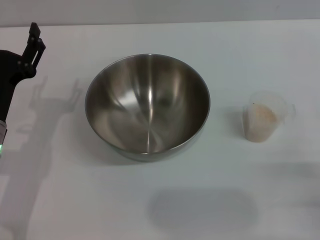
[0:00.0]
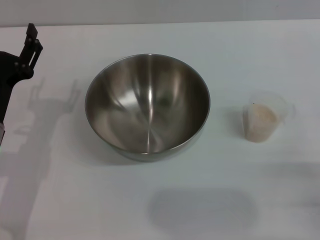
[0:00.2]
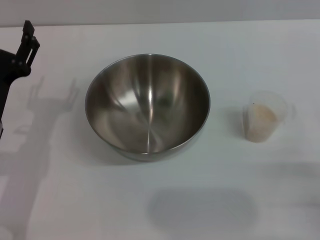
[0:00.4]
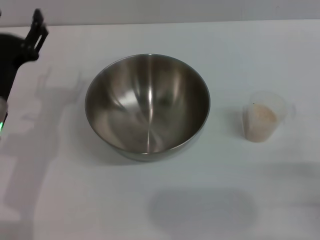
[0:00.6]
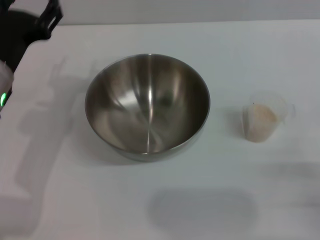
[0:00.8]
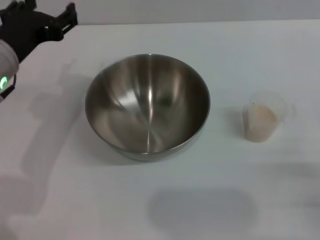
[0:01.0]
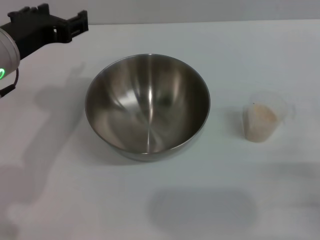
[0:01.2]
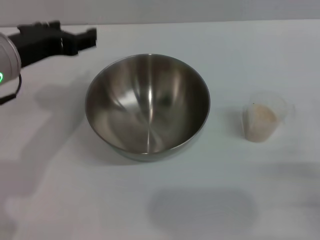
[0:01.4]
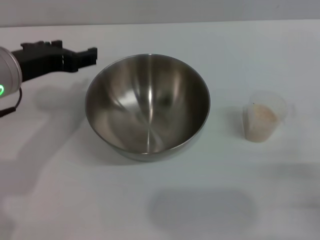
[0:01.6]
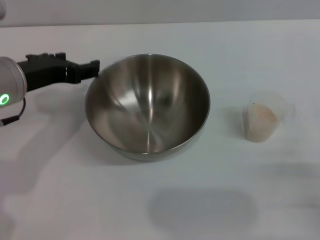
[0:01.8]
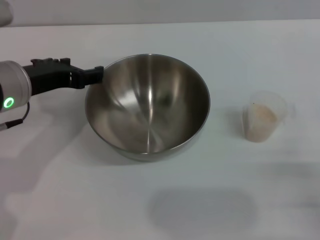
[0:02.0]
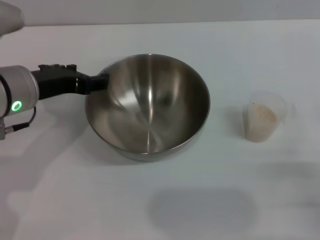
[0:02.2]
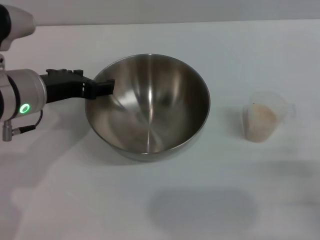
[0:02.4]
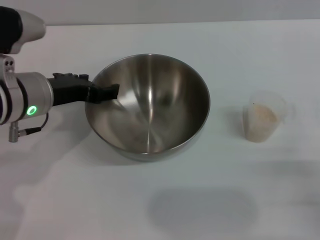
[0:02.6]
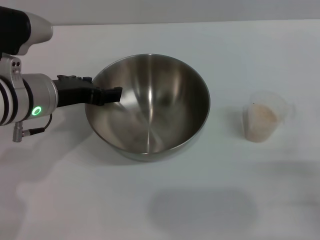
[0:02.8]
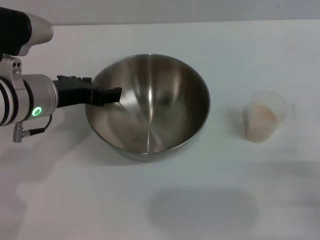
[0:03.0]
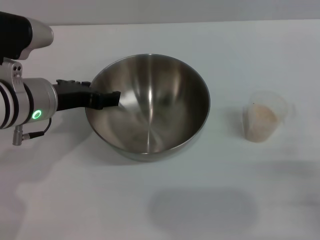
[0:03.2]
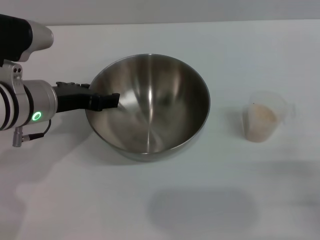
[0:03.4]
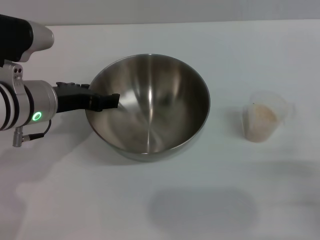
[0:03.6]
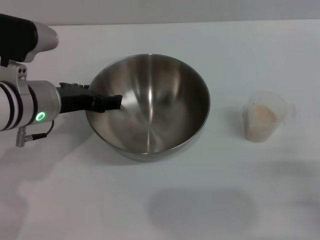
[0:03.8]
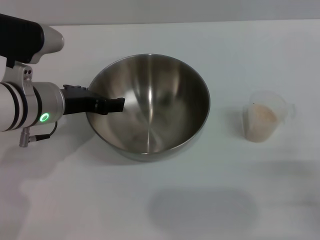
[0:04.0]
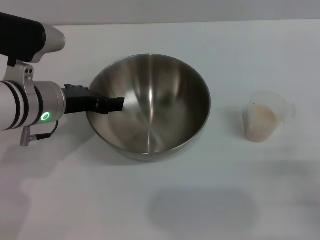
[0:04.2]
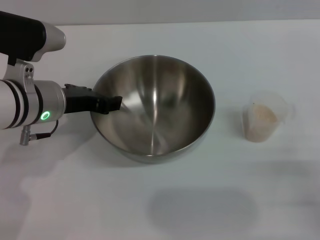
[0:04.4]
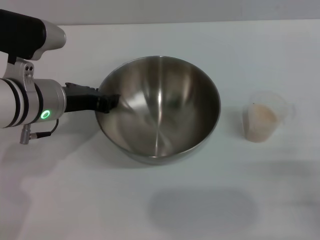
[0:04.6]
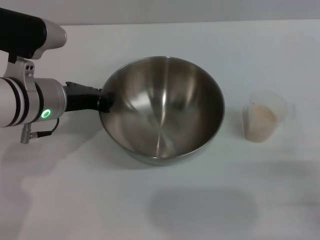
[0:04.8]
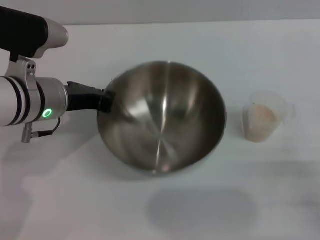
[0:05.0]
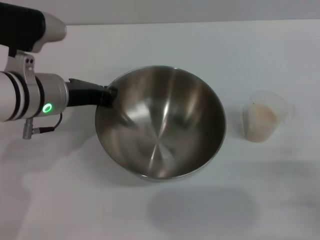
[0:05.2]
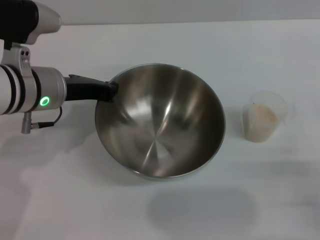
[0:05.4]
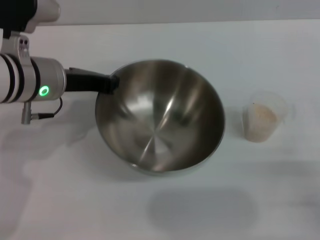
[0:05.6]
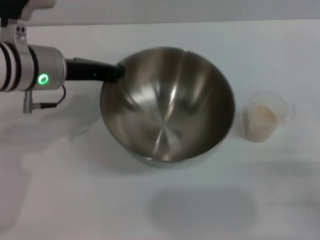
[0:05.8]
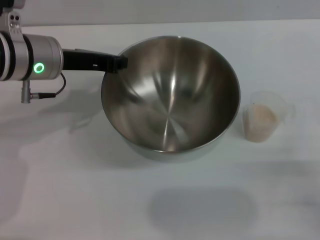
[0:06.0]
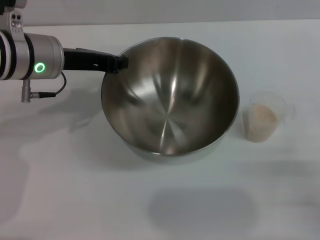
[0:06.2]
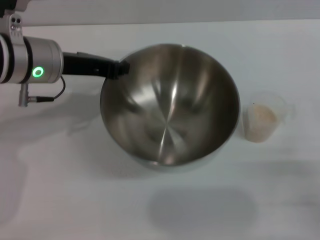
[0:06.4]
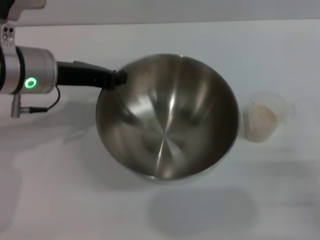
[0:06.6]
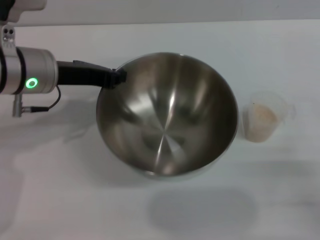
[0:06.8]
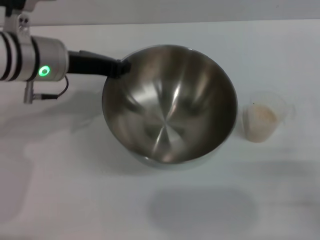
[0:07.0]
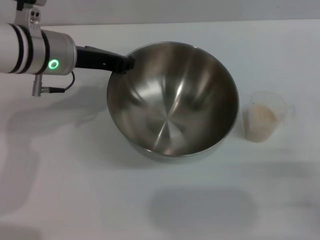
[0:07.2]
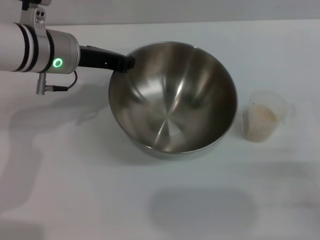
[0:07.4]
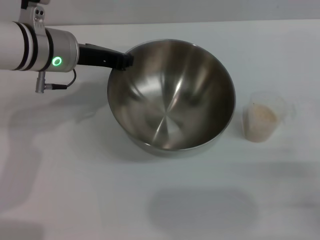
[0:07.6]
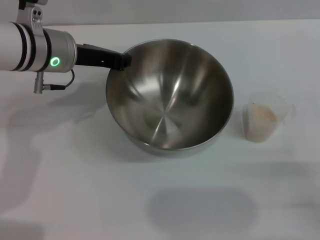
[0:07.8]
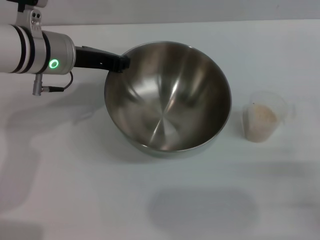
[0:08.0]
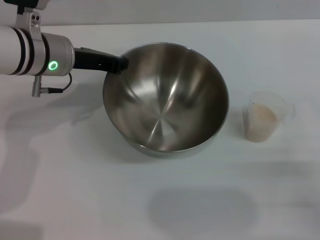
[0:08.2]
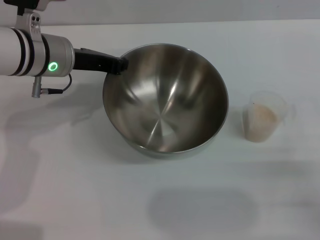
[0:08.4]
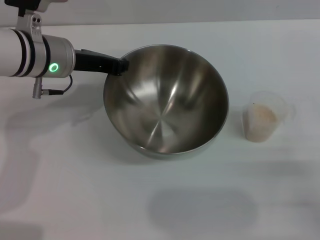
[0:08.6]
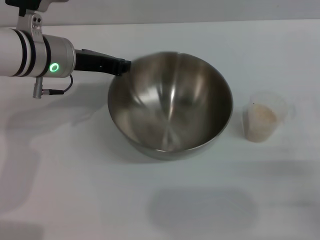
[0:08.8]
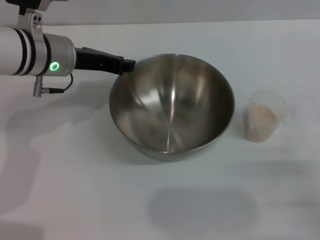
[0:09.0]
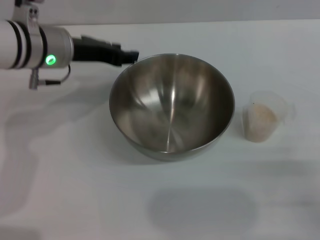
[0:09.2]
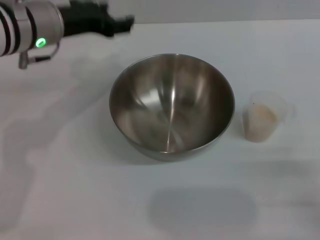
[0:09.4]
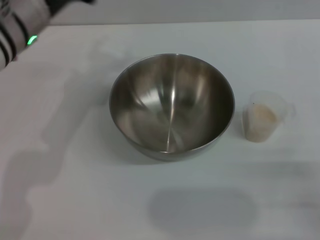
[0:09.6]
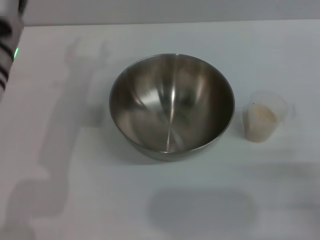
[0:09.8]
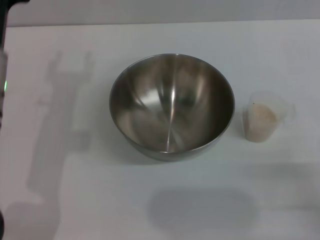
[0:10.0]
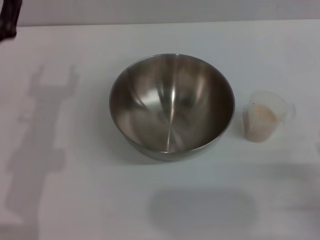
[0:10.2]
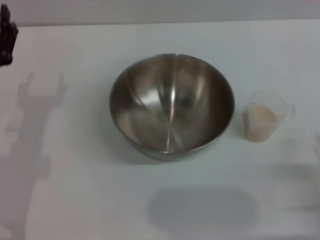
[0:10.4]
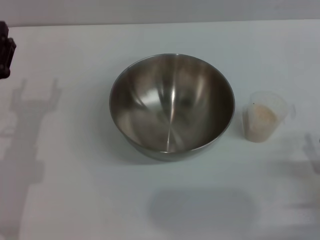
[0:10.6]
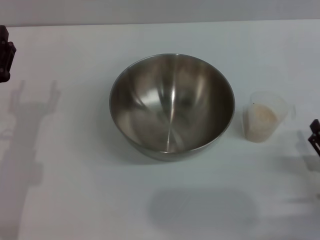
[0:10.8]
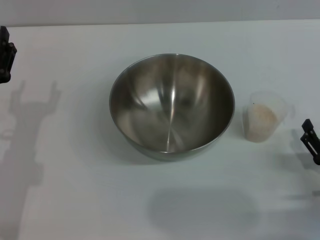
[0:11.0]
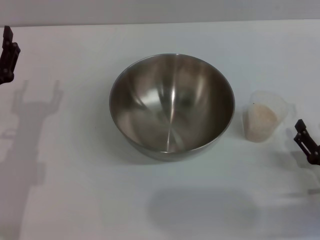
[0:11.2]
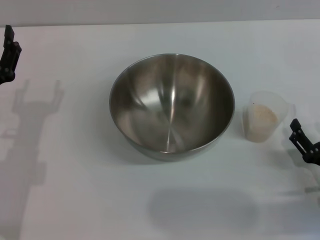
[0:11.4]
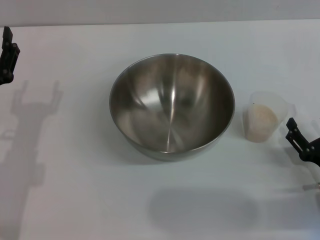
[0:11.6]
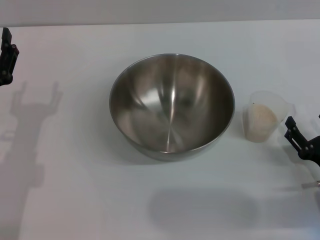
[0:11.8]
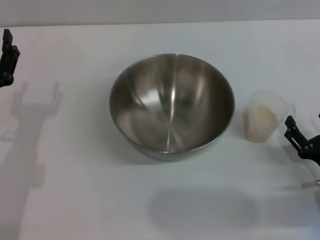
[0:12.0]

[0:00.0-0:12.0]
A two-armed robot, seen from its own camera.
Task of the whole recording: Place the bowl in the middle of the table with one hand and pour the rice from the grain cup into it with the other hand.
Step, 0:00.0 to 0:06.2: Pick up the bowl with the left gripper.
Step, 0:06.4 to 0:09.2: Place the bowl in the center of view with the left gripper.
0:00.0 to 0:01.6: The left gripper moves upward, about 10 cm.
0:01.6 to 0:03.0: The left gripper ends up approximately 5 cm from where it was.
0:03.0 to 0:04.4: The grippers make only small movements.
0:04.4 to 0:06.0: The left gripper ends up some 5 cm from where it was, and closes up.
0:06.0 to 0:07.6: There are only small adjustments of the grippers.
0:07.6 to 0:09.0: The two grippers keep their place.
0:09.0 to 0:10.4: The left gripper travels backward, downward and to the left by some 15 cm, and opens up.
0:10.4 to 0:12.0: The right gripper shifts some 5 cm forward.

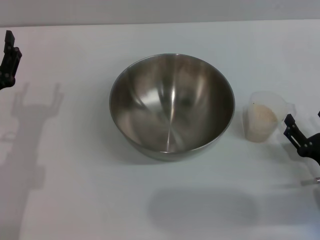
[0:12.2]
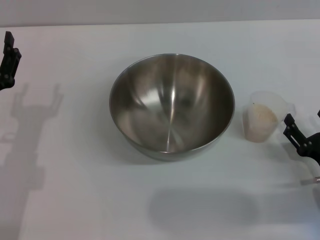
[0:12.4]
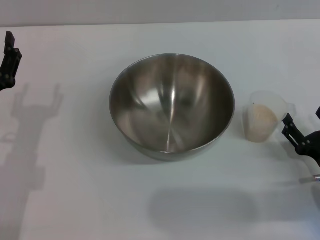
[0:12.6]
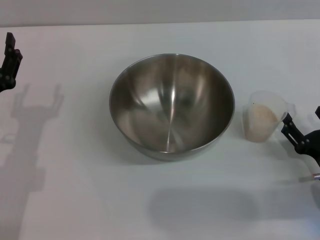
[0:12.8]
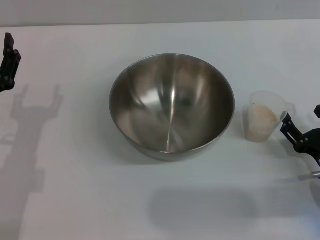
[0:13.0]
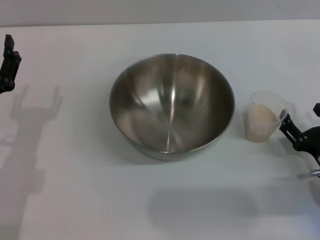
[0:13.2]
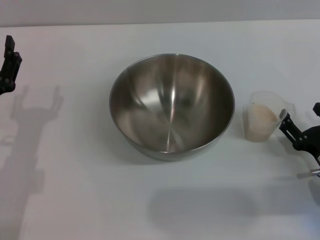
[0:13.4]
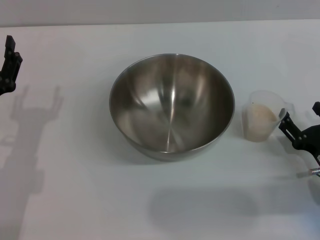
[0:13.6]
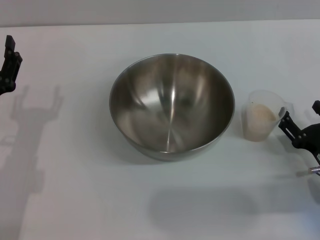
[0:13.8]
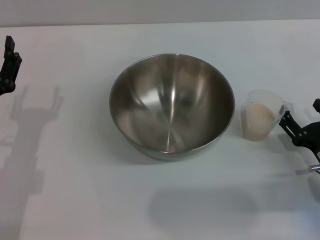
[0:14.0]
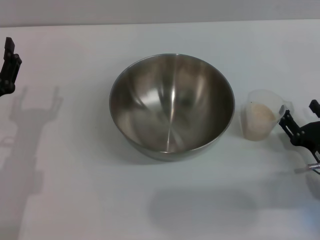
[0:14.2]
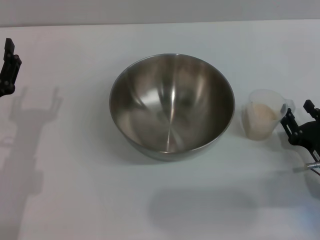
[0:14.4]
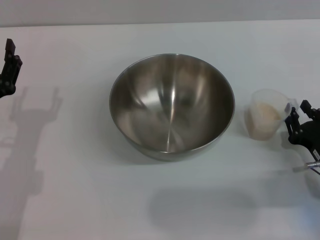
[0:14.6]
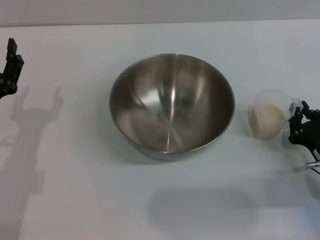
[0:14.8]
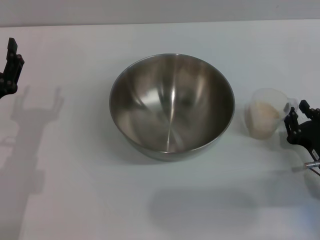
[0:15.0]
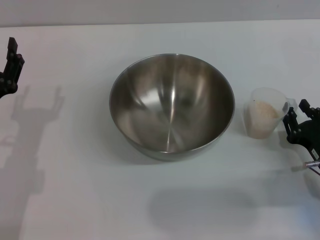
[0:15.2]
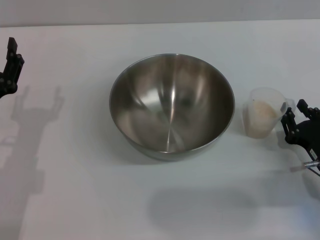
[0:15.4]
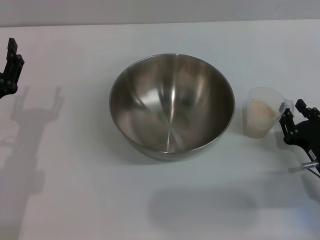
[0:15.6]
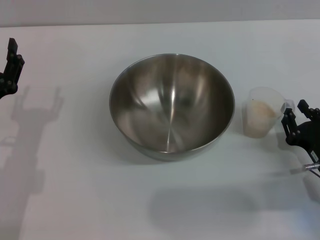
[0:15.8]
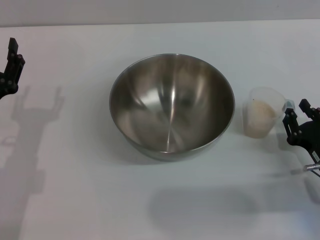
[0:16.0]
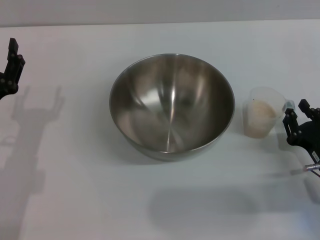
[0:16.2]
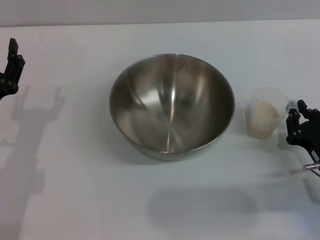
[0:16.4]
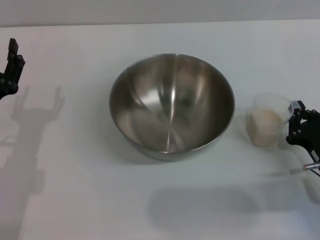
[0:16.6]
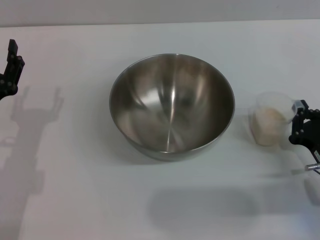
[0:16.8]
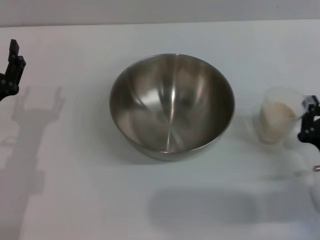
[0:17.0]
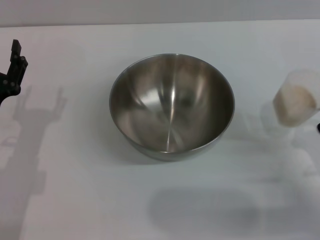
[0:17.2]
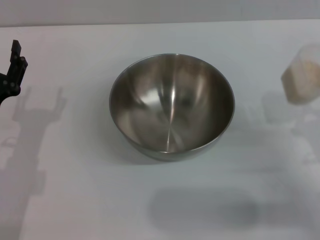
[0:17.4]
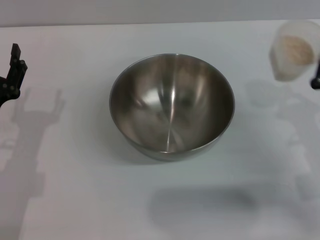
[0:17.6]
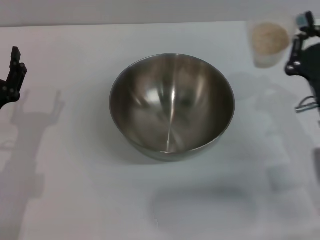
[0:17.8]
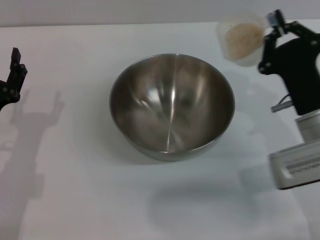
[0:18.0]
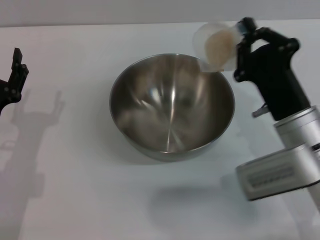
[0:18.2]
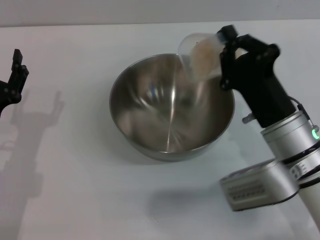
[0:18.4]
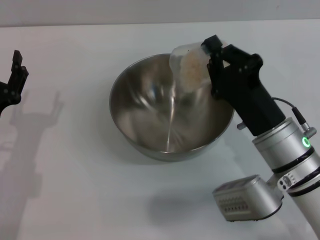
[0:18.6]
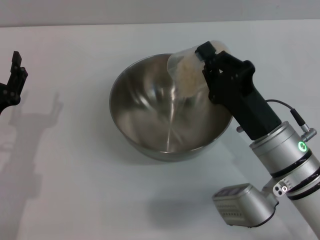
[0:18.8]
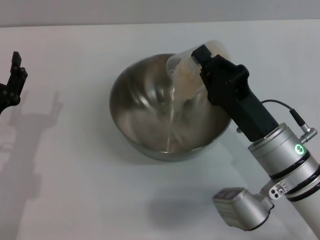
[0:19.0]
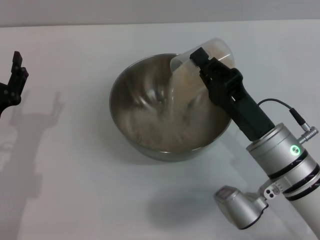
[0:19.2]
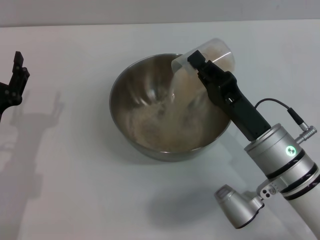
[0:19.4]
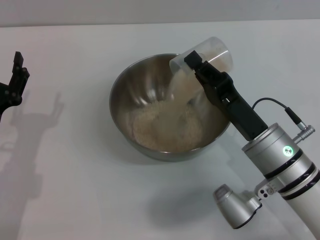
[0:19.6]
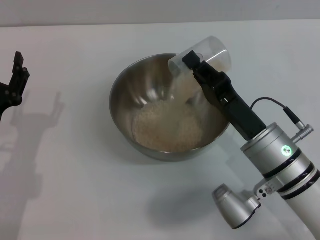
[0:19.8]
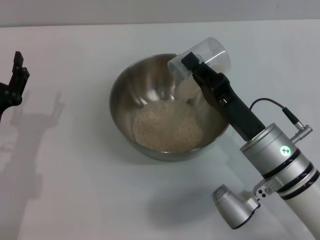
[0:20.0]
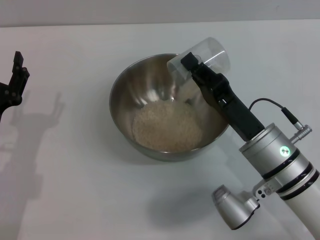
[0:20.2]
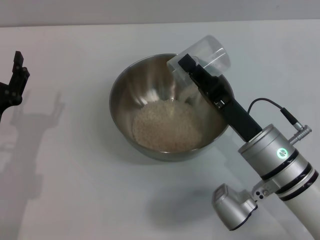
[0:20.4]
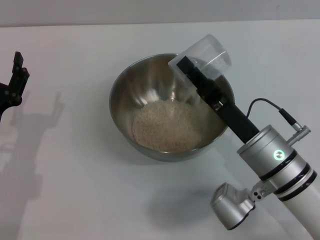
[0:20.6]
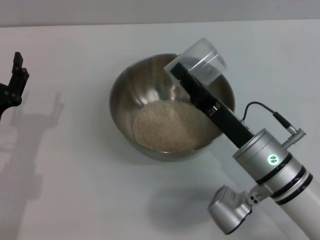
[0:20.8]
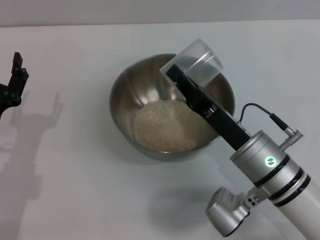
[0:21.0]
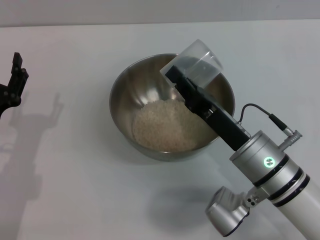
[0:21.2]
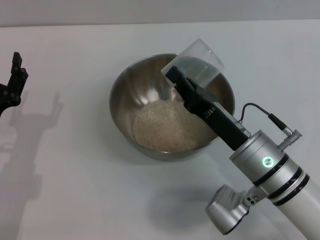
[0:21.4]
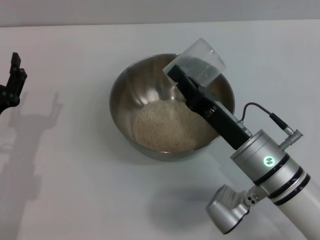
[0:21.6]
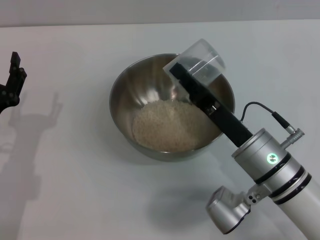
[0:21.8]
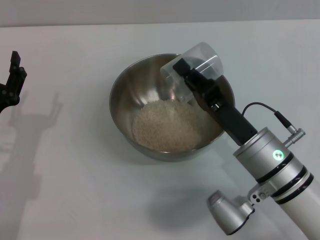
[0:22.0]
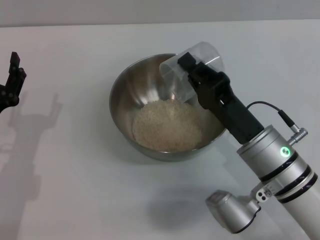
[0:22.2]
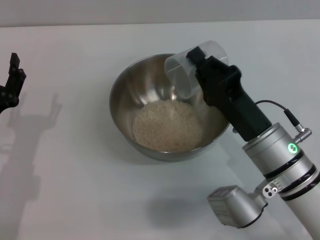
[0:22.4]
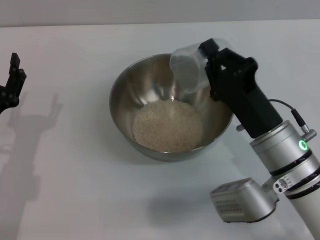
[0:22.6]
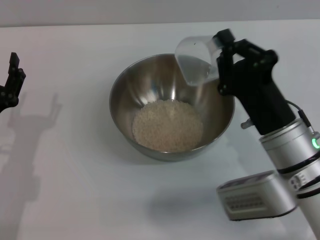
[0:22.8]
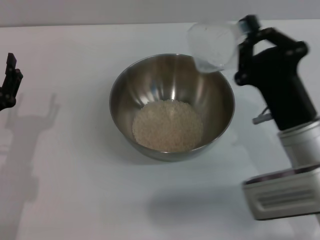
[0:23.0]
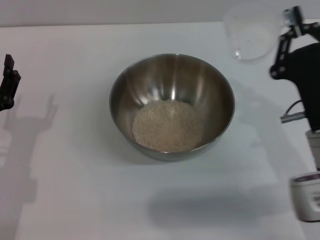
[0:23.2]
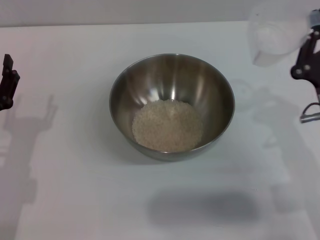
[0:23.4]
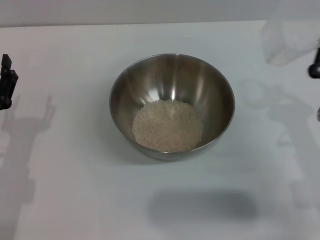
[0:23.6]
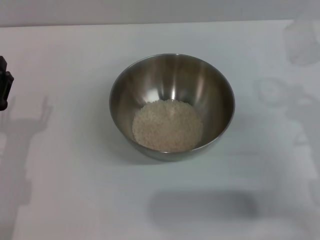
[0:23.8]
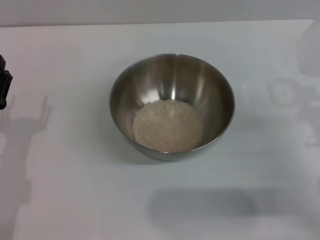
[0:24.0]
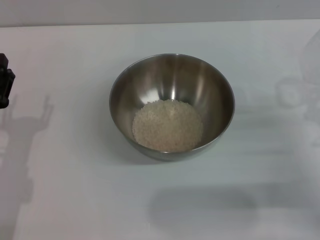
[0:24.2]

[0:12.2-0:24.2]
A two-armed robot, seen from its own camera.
Task of the whole recording: Place the bowl in the middle of the table with one hand and pour the rice from the grain cup into it with the other hand.
Step, 0:12.2 to 0:17.4: Pick up the cup with rice in it with the right gripper.
Step, 0:17.6 to 0:20.6: Pour the rice from the cup into the bowl with the right gripper.
0:12.2 to 0:13.8: The grippers make only small movements.
0:13.8 to 0:15.2: The right gripper closes its fingers.
0:15.2 to 0:16.6: Neither gripper changes place.
0:16.6 to 0:18.2: The right gripper travels to the left and upward by some 10 cm.
0:19.8 to 0:21.2: There are only small adjustments of the grippers.
0:22.6 to 0:24.2: The right gripper travels to the right by approximately 15 cm.
